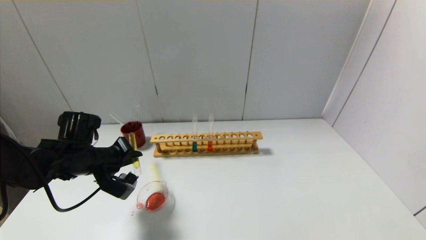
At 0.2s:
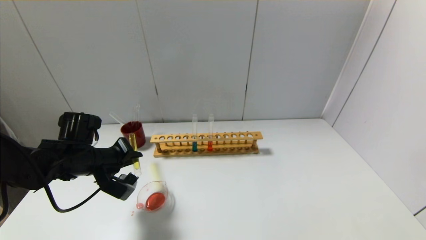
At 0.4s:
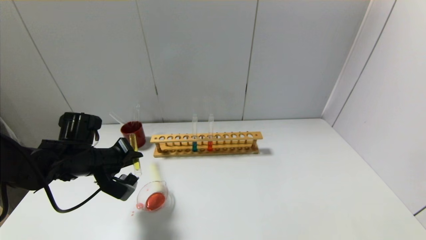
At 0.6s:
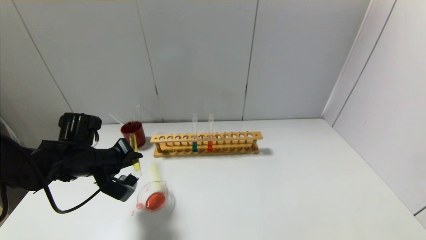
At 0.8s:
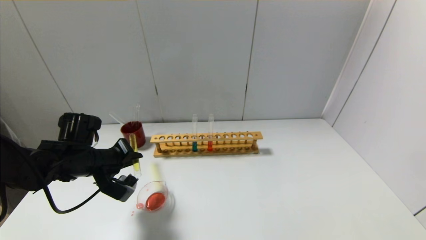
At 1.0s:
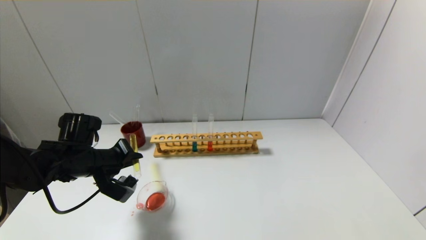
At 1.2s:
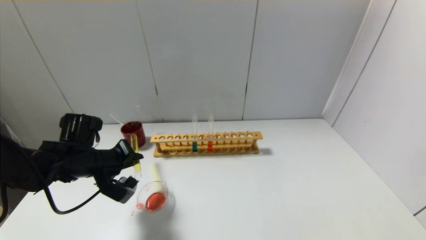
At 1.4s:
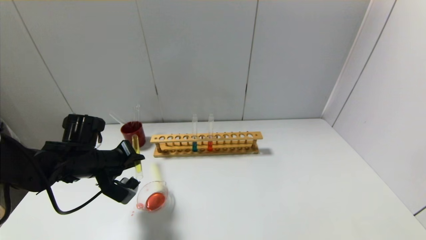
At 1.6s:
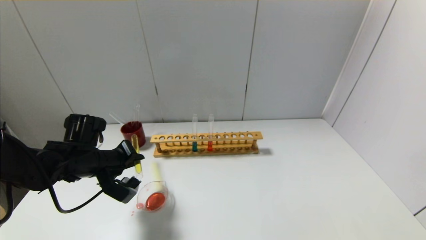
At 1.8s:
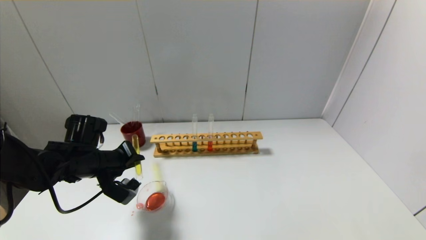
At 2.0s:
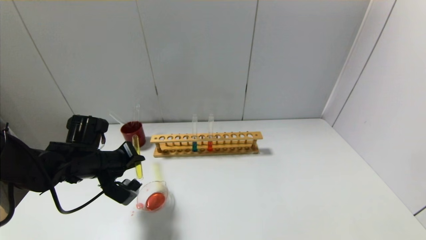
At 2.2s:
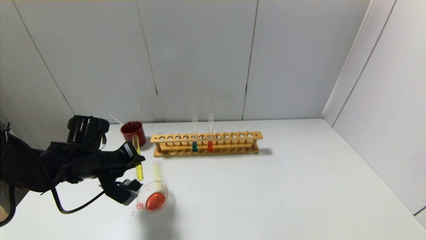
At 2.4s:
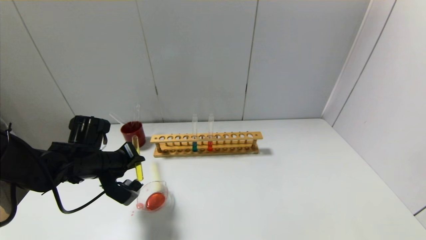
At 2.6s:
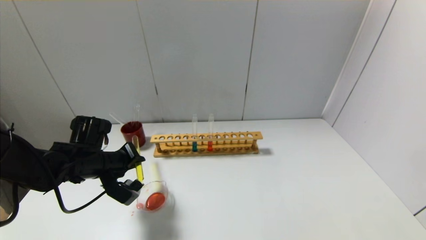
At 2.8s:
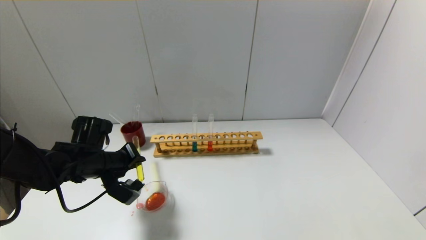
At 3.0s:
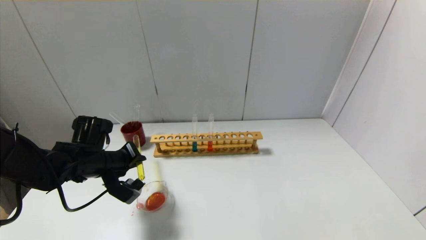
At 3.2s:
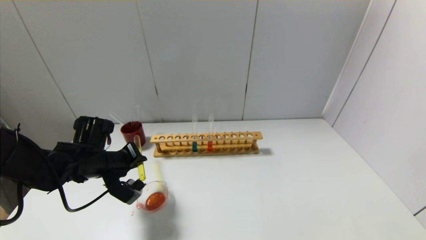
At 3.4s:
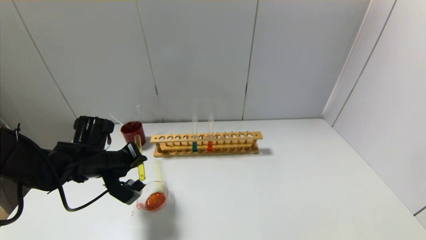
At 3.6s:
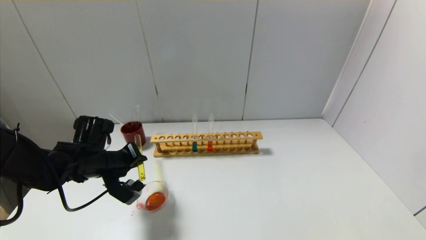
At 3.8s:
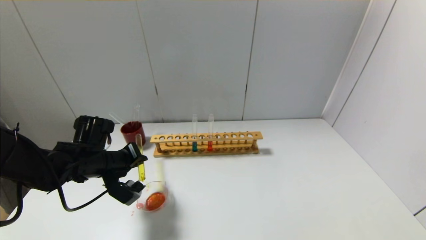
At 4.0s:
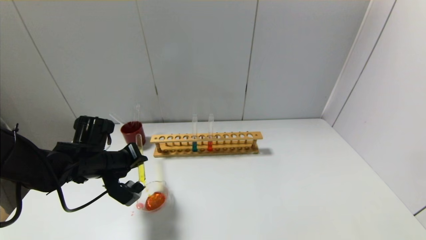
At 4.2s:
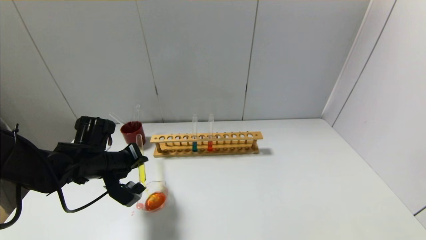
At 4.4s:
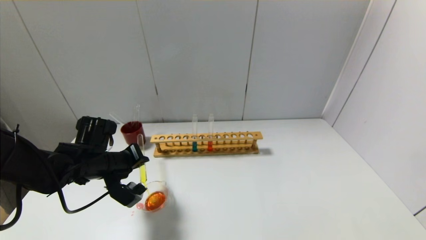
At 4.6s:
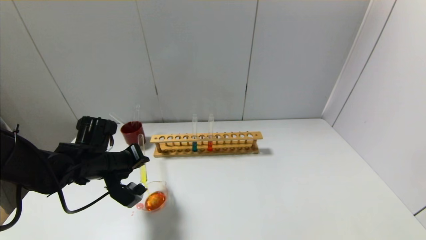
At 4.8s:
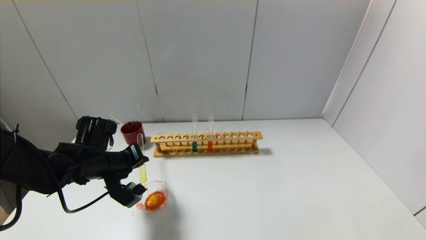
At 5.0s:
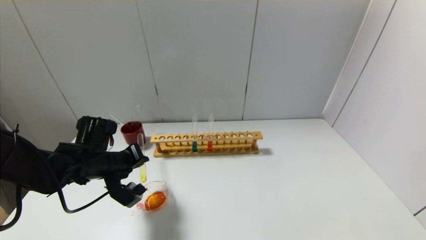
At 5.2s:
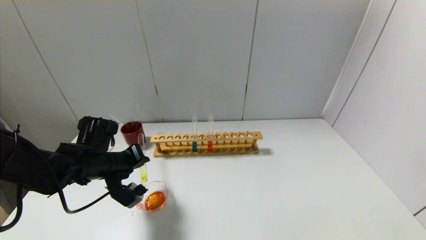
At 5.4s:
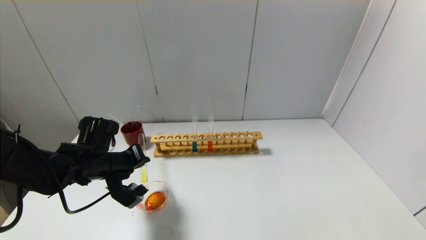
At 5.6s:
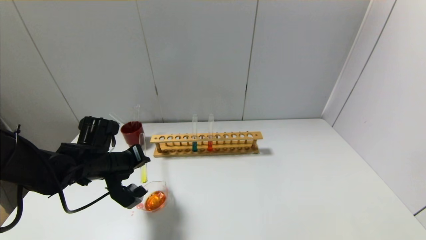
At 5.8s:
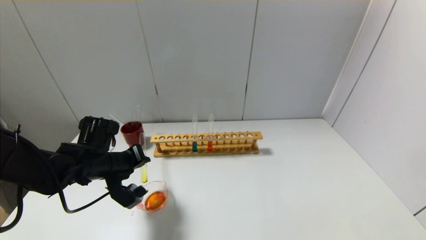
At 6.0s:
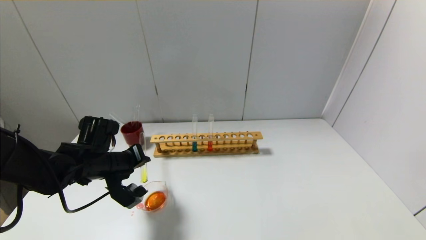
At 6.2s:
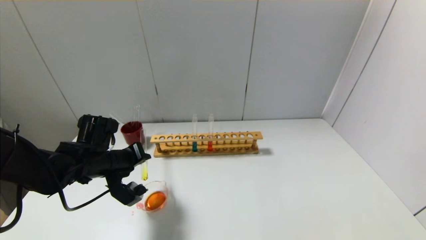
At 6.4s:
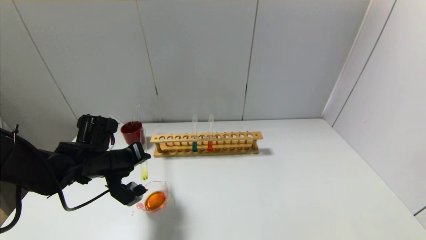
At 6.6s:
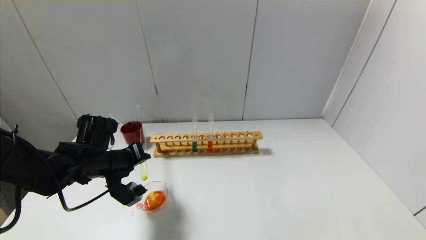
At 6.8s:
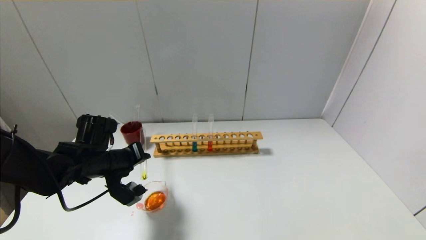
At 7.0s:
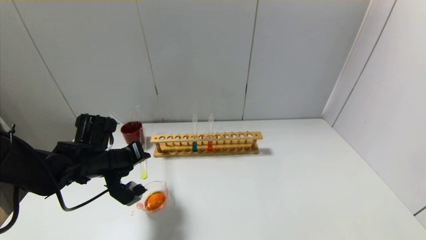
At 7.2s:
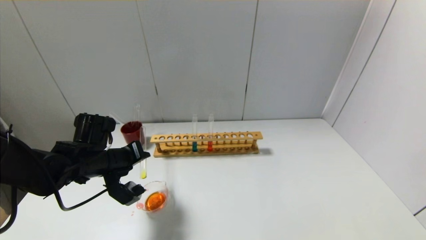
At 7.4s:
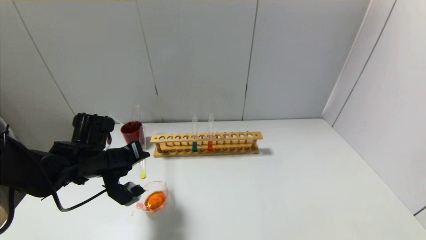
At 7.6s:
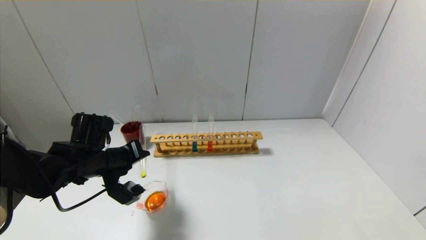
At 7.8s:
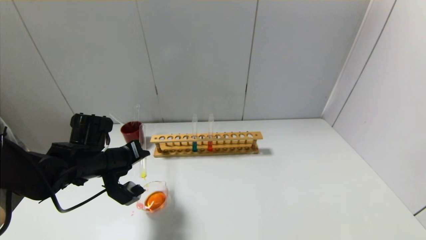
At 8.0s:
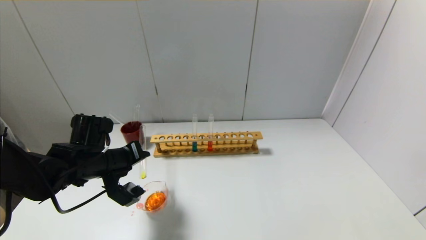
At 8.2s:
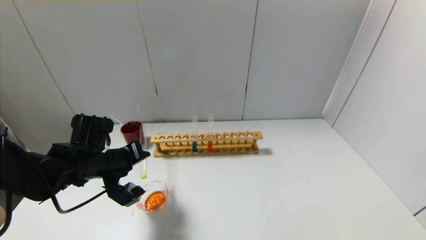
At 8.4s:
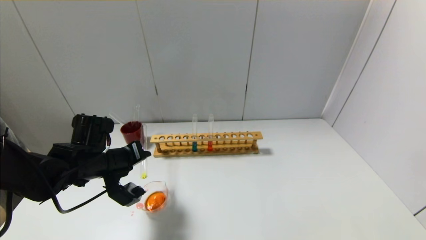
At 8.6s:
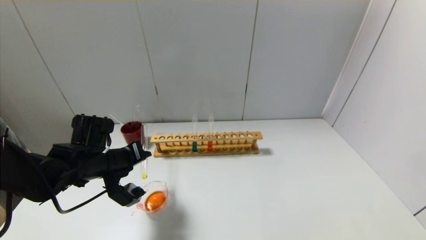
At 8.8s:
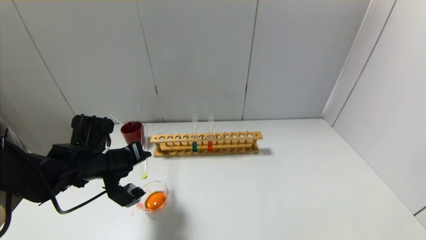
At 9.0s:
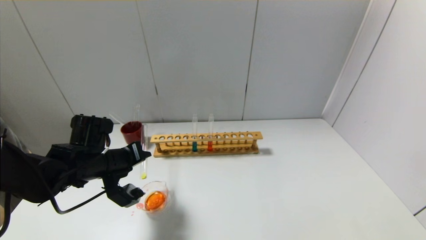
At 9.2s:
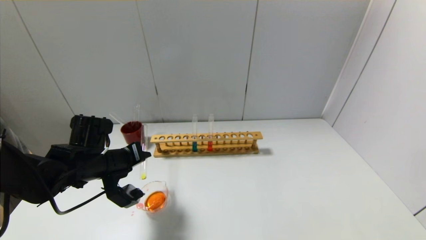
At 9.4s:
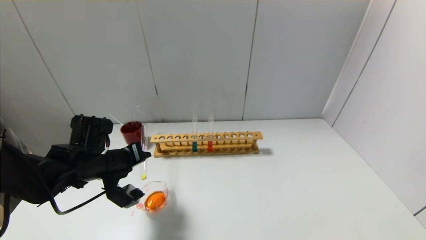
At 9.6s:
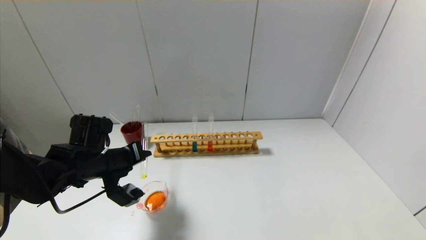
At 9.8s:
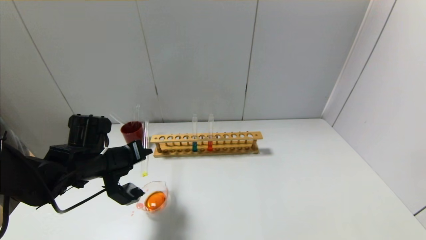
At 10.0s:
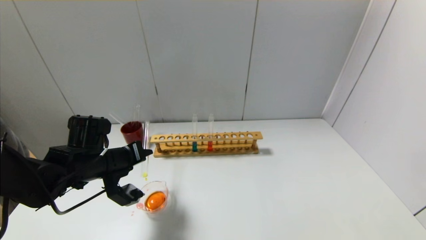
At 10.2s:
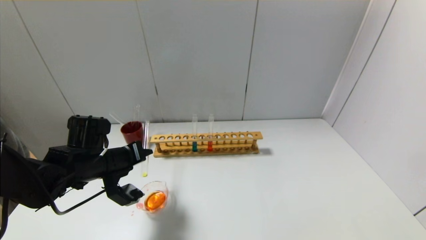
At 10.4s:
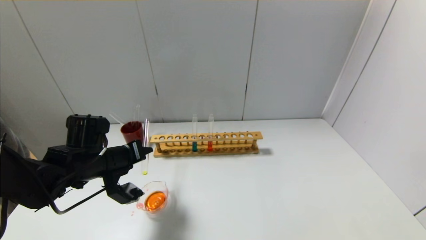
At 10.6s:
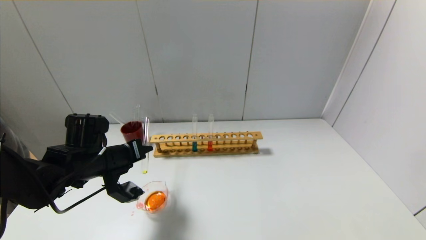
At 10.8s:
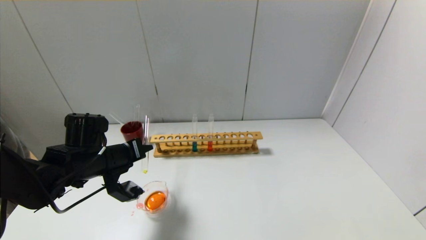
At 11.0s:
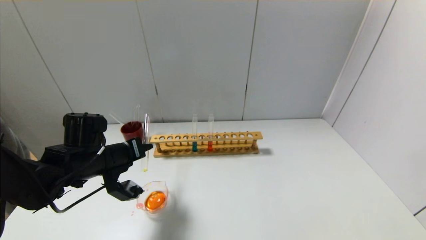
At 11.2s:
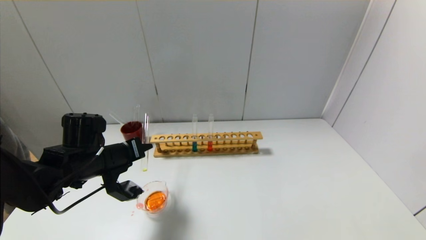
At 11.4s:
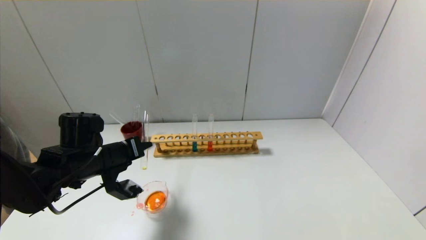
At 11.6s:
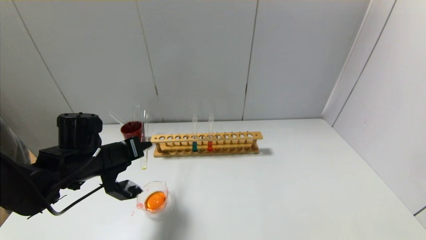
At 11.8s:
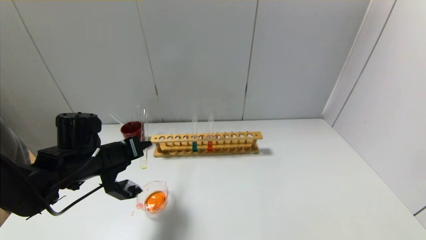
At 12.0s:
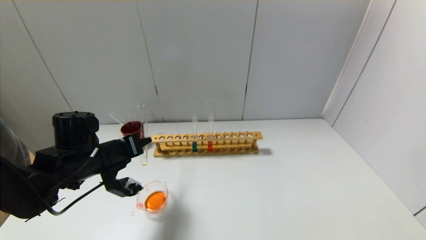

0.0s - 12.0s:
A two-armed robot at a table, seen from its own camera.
0.0s - 1.6s: Neither gripper changes place.
1.6s - 3.0s: Neither gripper changes place.
3.0s - 4.4s: The two grippers keep their place.
4.4s - 6.0s: The two grippers keep their place.
6.0s - 7.6s: There are only small adjustments of the grippers.
7.6s - 9.0s: The two grippers keep their place.
9.0s - 12.0s: The grippers make only small movements.

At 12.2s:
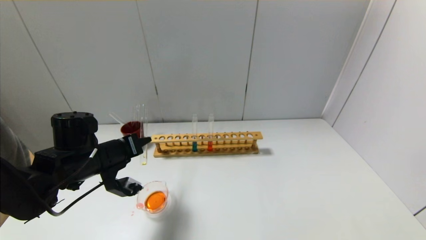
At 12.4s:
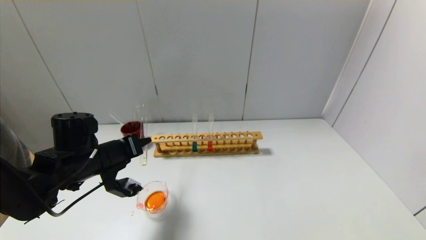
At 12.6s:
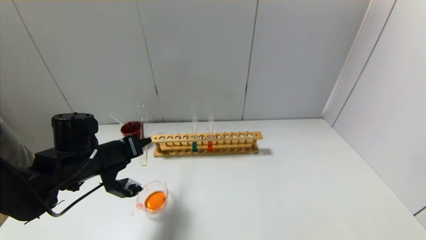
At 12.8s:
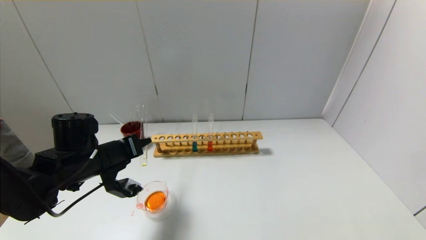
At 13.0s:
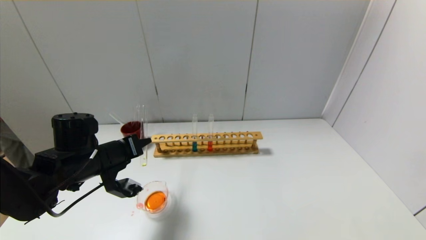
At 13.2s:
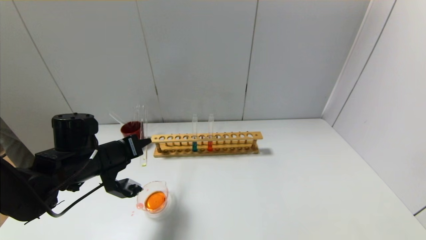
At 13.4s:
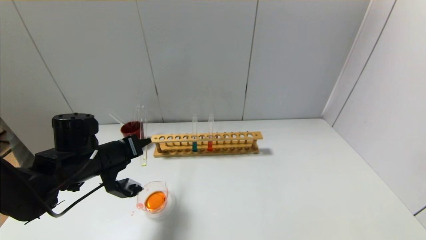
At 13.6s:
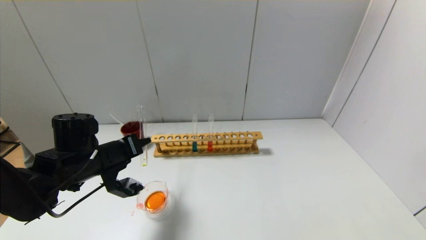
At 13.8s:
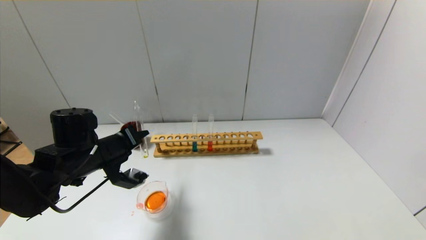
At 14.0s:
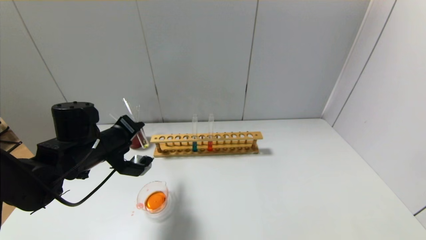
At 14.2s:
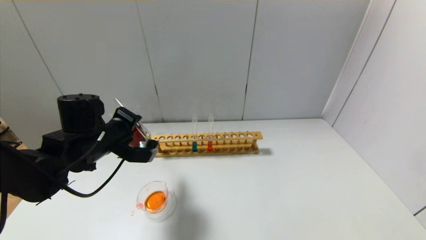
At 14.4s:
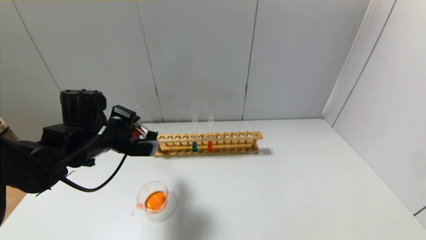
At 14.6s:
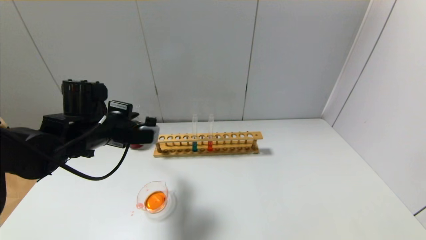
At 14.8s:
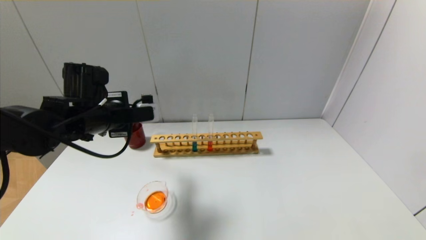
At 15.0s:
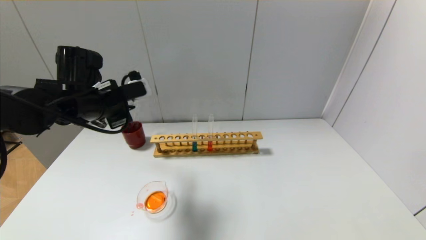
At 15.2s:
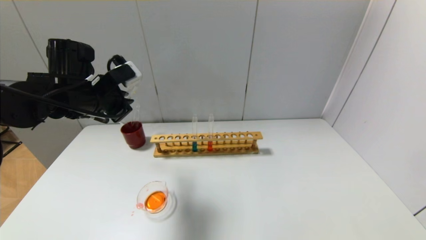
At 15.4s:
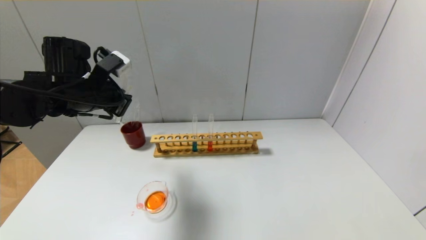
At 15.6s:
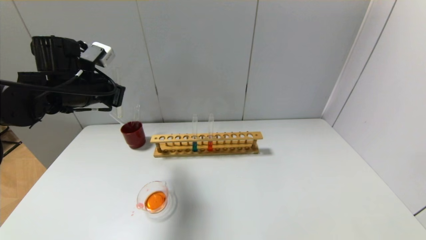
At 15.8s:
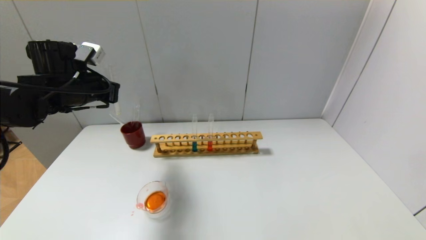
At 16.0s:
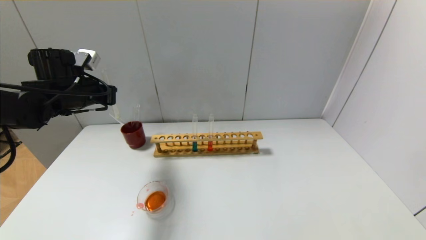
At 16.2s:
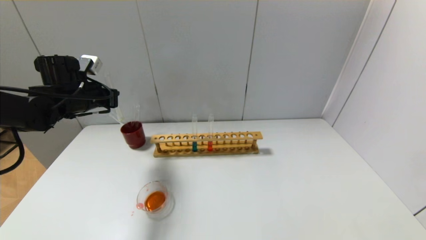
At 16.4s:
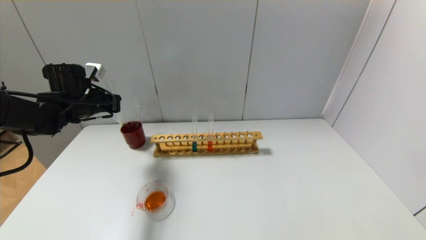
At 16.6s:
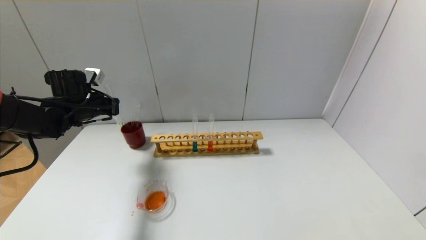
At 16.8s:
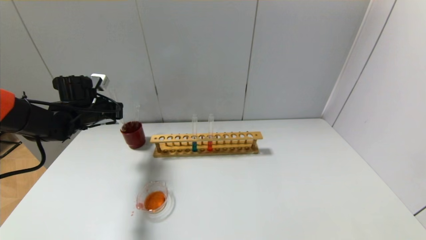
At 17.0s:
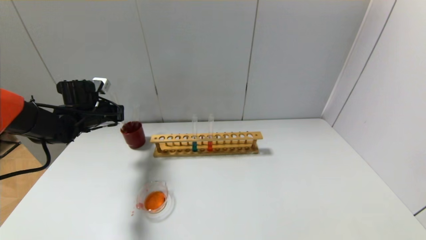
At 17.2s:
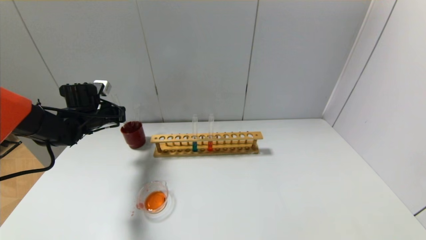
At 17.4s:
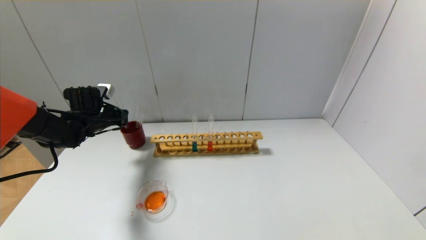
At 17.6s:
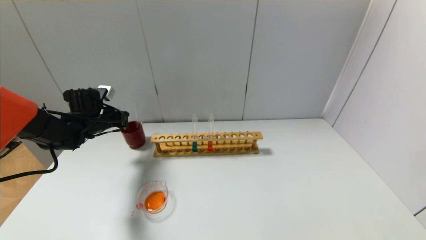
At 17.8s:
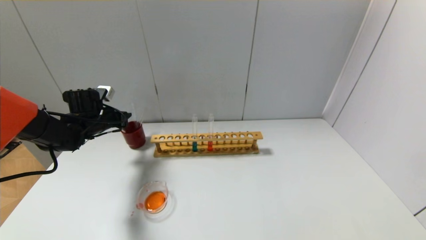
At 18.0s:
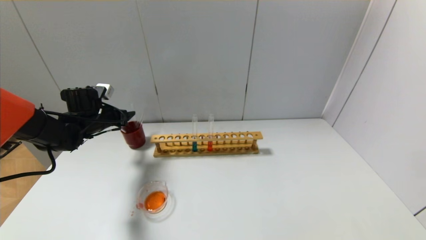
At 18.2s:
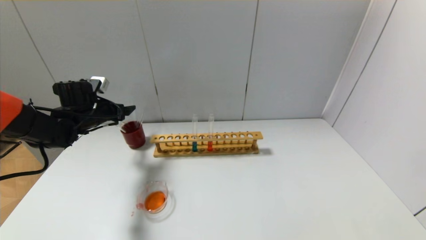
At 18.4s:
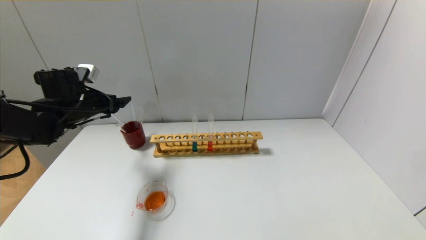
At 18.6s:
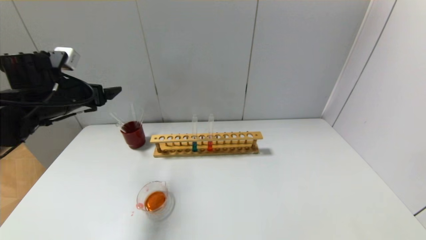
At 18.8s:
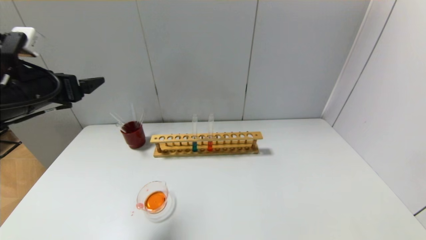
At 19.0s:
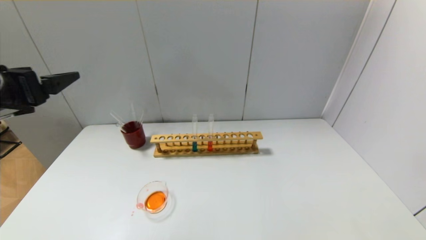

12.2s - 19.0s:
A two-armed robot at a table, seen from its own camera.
Step, 14.0s - 17.8s: Place the test tube into the brown cup with the left gripper.
12.2s - 13.6s: Both grippers stay about where they are.
13.6s - 15.0s: The left gripper shifts approximately 10 cm upward.
15.0s - 16.2s: The left gripper travels to the left and forward by roughly 10 cm.
16.2s - 17.6s: The left gripper goes roughly 10 cm downward.
17.6s - 19.0s: The left gripper heads backward and upward, covering some 30 cm, and opens.
